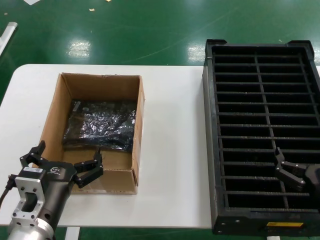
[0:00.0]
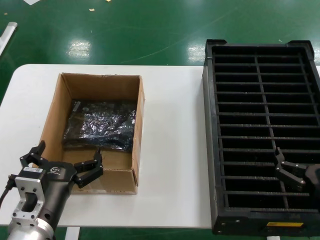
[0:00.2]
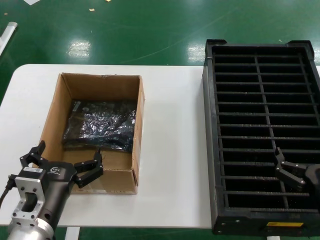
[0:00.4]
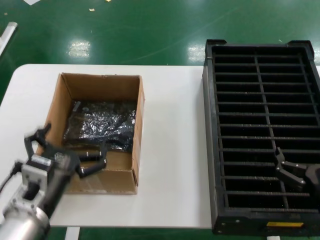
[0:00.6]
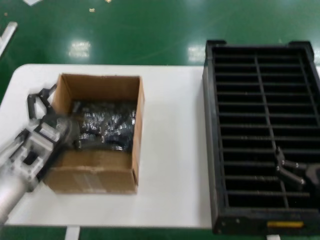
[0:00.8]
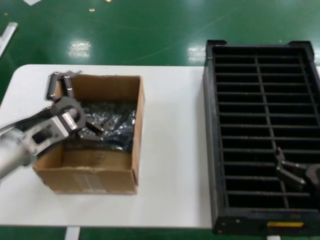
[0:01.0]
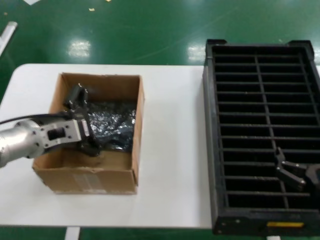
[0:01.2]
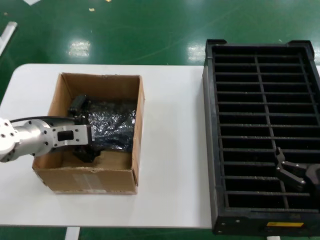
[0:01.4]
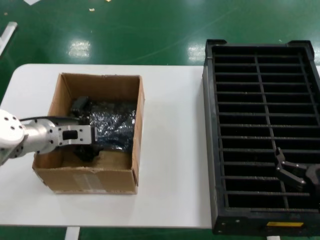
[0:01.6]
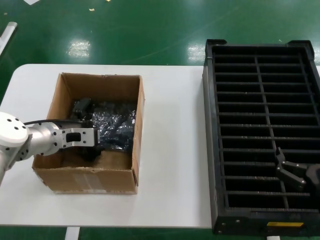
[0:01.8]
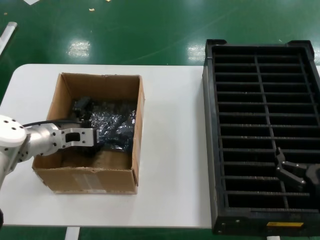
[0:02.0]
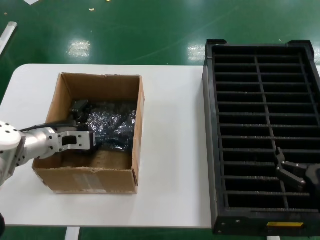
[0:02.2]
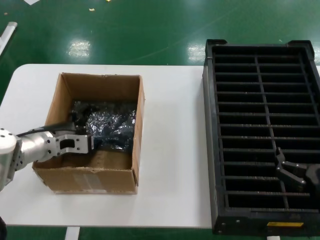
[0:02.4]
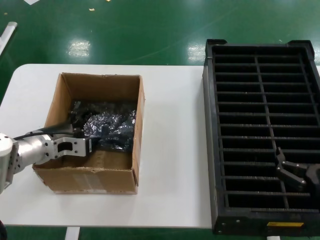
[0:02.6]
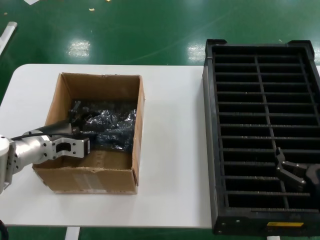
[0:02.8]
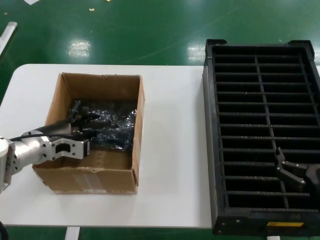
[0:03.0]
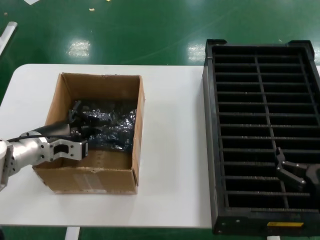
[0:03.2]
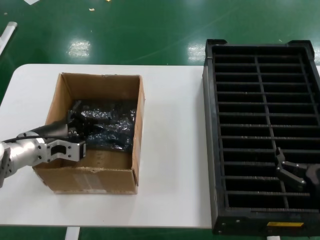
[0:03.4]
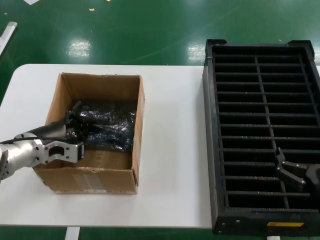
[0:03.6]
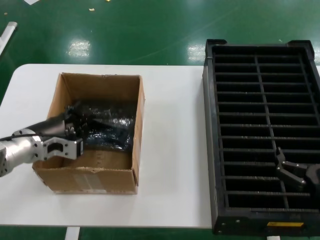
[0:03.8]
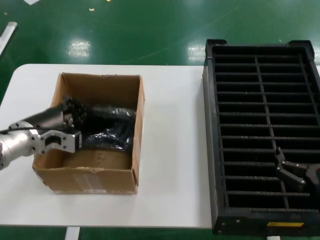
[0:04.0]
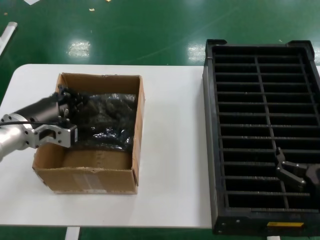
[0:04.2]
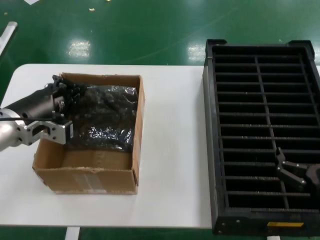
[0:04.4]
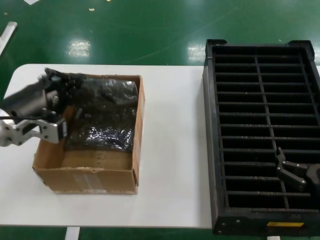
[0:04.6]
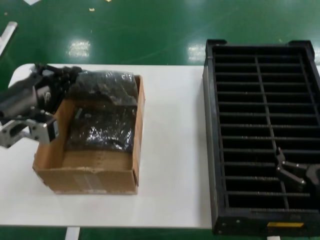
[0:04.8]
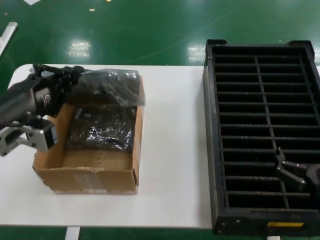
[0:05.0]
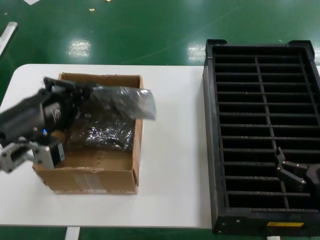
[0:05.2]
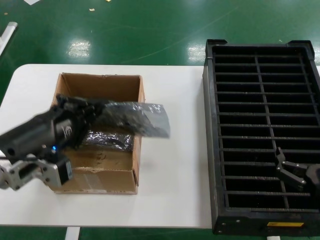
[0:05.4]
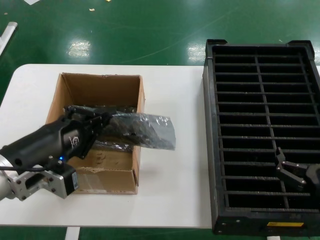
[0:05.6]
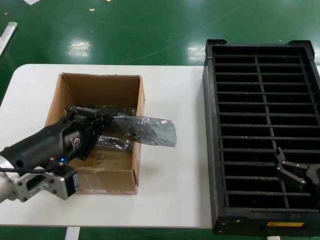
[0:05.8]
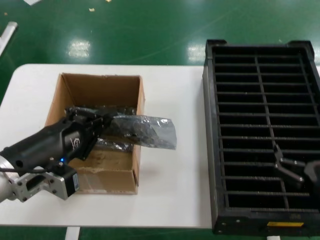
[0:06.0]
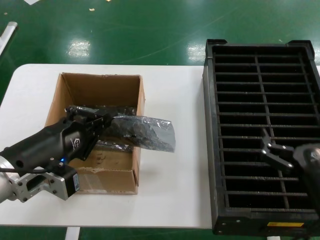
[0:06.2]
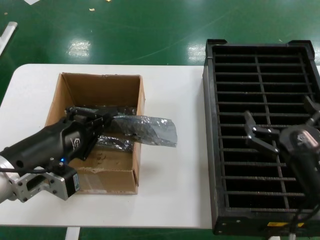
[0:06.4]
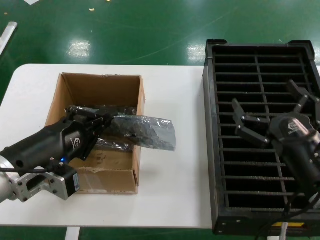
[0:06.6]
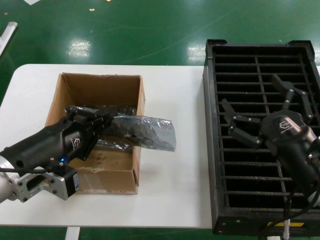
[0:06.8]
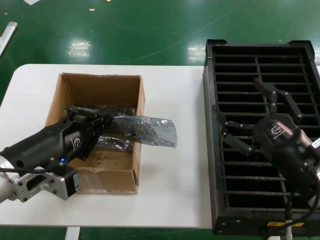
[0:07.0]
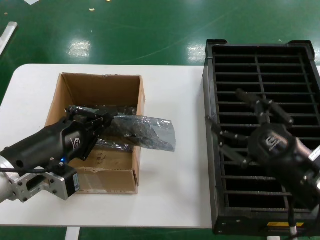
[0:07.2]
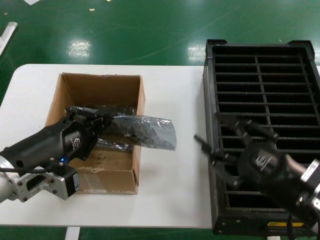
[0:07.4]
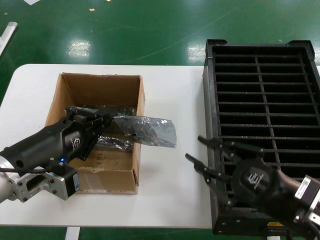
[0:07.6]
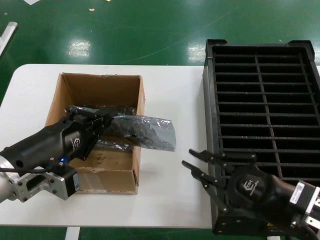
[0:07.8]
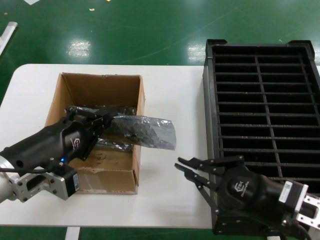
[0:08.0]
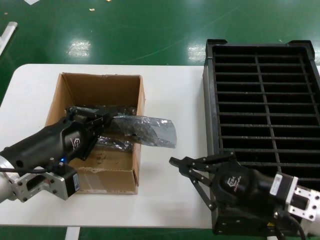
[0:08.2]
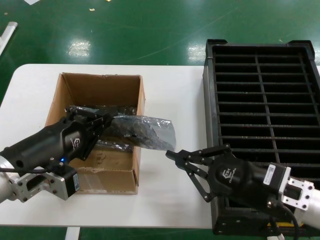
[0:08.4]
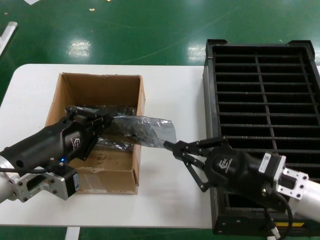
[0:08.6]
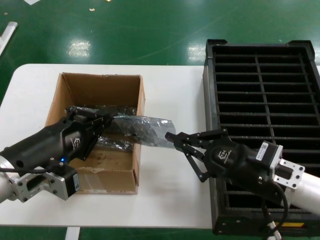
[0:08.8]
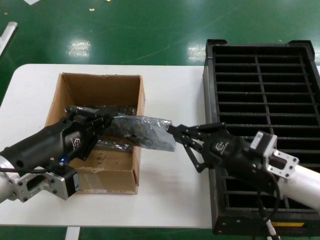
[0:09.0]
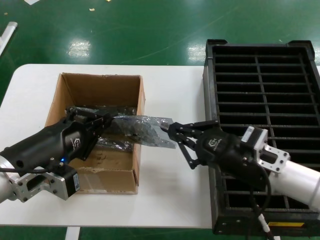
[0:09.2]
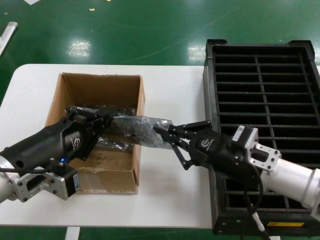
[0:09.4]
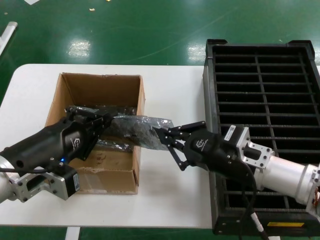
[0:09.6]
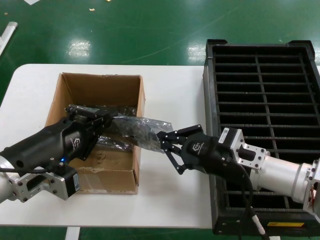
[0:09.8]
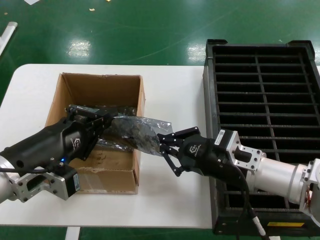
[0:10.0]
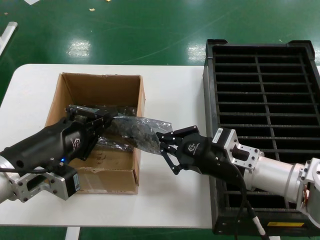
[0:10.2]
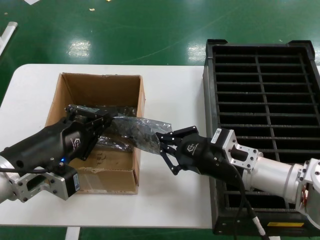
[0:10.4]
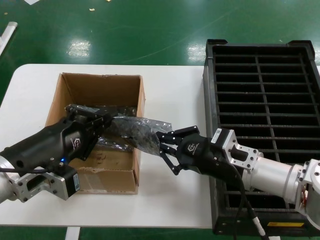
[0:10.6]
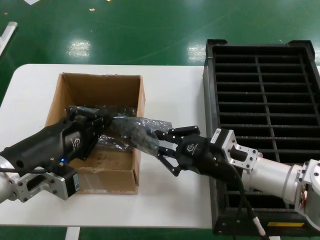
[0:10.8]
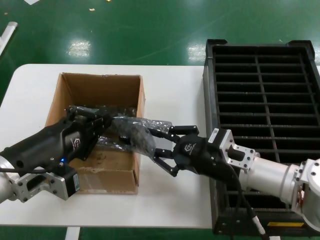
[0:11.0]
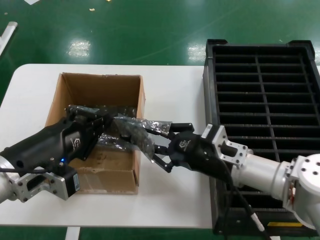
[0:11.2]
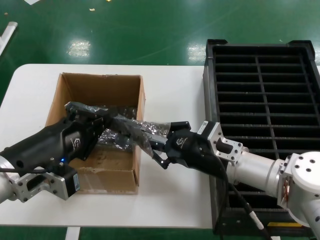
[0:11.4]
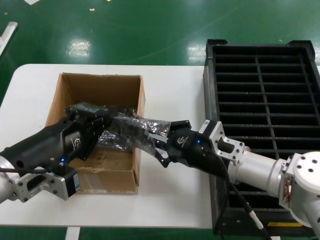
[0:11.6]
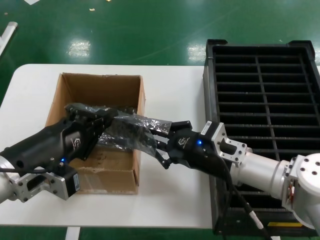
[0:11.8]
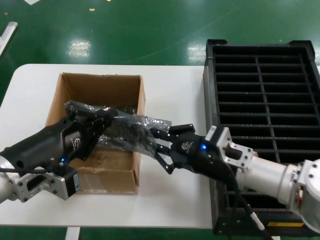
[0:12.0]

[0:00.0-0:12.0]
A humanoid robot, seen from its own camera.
Task of the whole recording: take out graphics card from box remove packaging put into black container.
Step, 0:00.0 to 0:03.2: Grasp the bag.
Step, 0:03.6 to 0:06.0: Lift the bag.
0:00.0 to 0:01.6: The left hand is displaced forward and upward by roughly 20 cm.
0:01.6 to 0:03.0: There are only small adjustments of the hands.
0:03.0 to 0:04.4: The left hand goes some 10 cm upward and backward.
0:04.4 to 0:06.0: The left hand goes approximately 10 cm backward.
0:06.0 to 0:07.6: The right hand changes place by about 5 cm.
0:07.6 to 0:09.0: The right hand shifts roughly 10 cm forward.
0:09.0 to 0:10.4: The right hand shifts by approximately 5 cm.
0:10.4 to 0:12.0: The hands make only small movements.

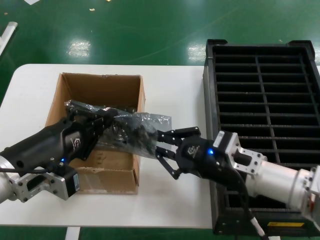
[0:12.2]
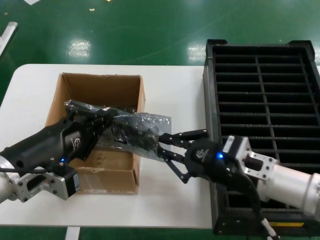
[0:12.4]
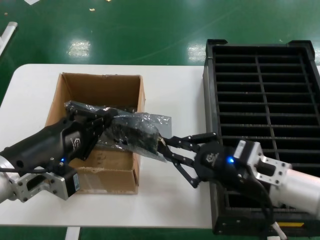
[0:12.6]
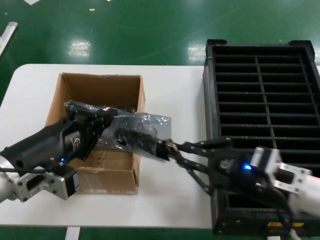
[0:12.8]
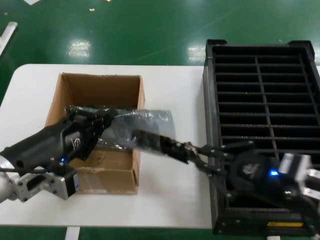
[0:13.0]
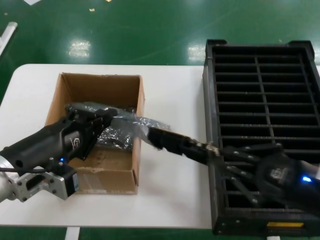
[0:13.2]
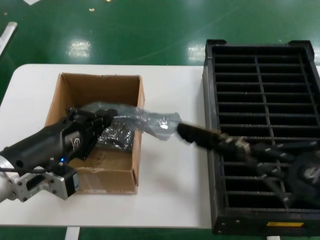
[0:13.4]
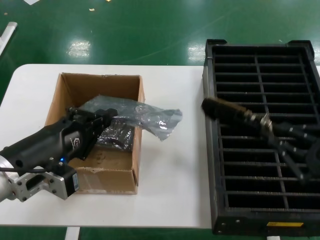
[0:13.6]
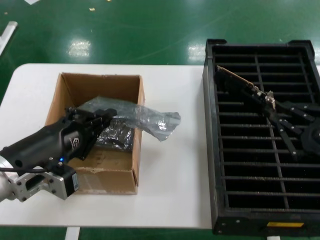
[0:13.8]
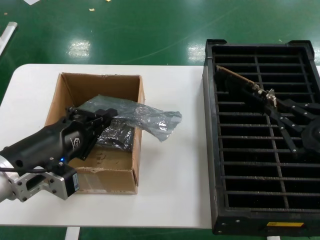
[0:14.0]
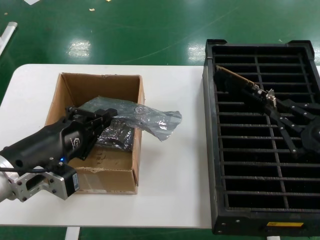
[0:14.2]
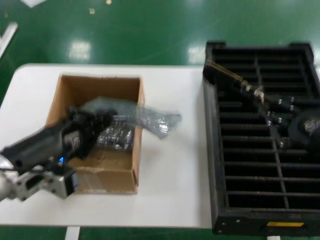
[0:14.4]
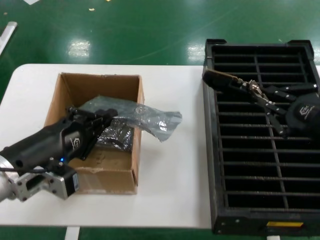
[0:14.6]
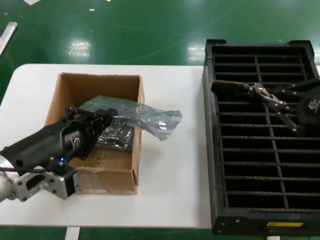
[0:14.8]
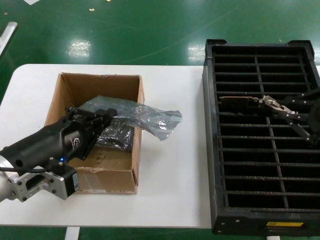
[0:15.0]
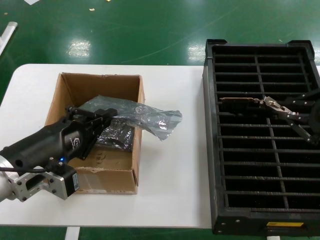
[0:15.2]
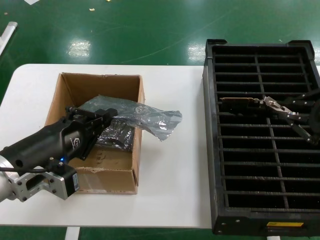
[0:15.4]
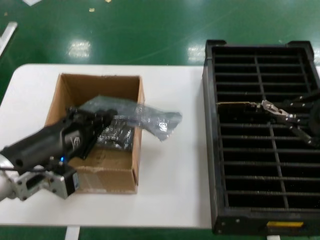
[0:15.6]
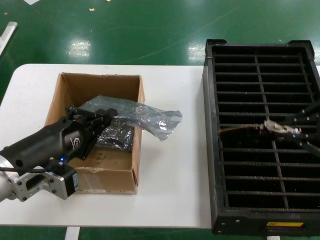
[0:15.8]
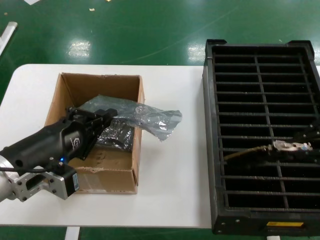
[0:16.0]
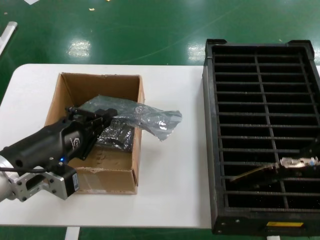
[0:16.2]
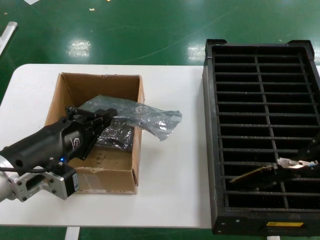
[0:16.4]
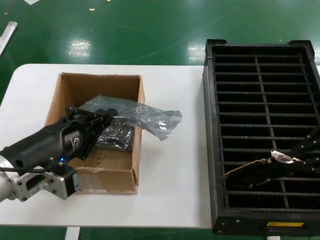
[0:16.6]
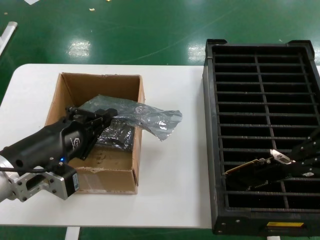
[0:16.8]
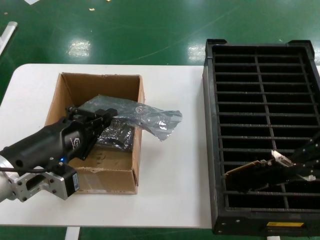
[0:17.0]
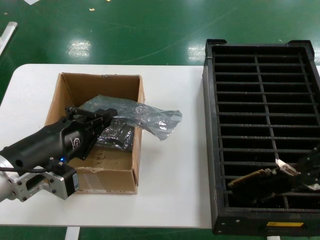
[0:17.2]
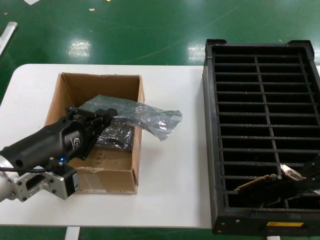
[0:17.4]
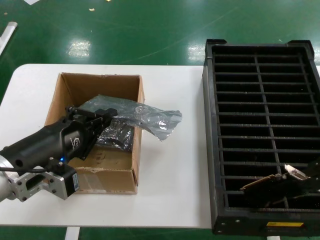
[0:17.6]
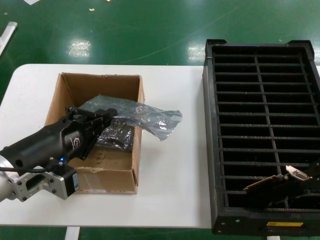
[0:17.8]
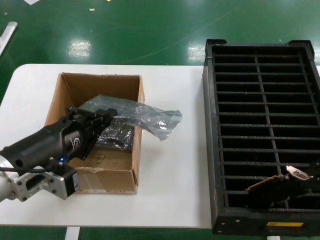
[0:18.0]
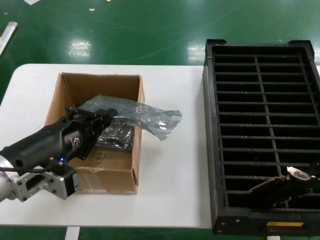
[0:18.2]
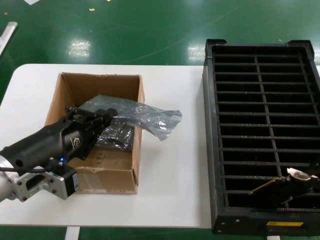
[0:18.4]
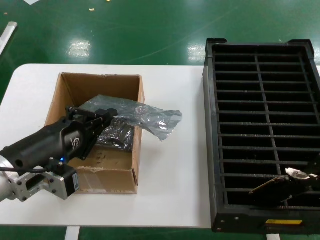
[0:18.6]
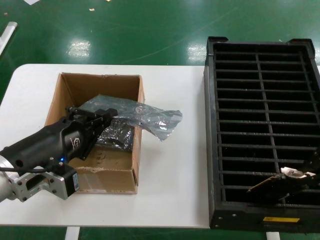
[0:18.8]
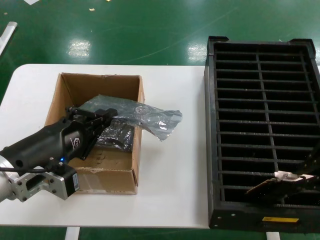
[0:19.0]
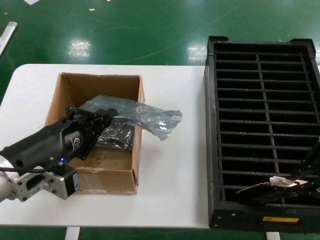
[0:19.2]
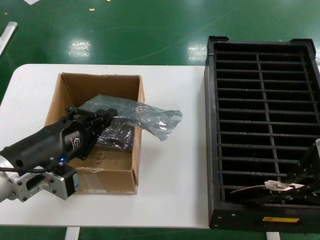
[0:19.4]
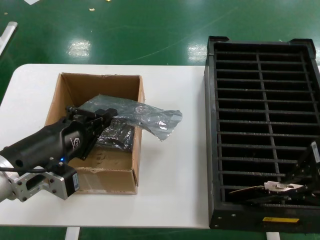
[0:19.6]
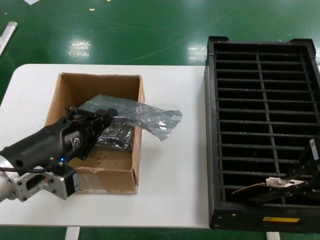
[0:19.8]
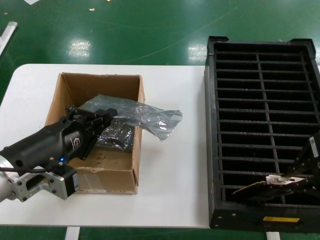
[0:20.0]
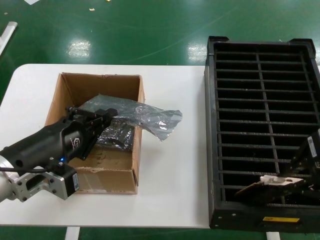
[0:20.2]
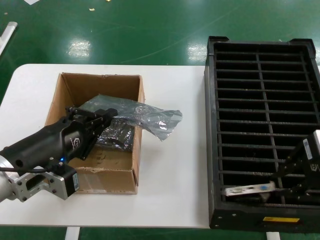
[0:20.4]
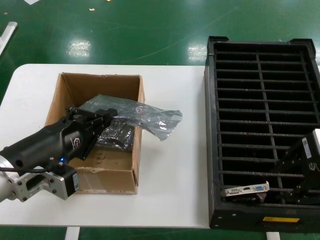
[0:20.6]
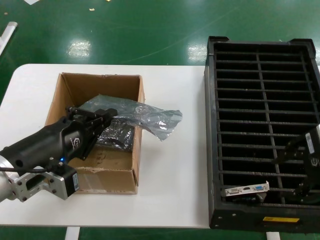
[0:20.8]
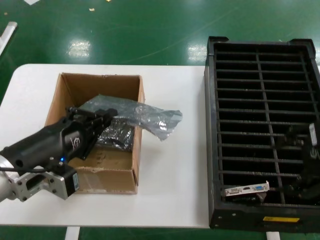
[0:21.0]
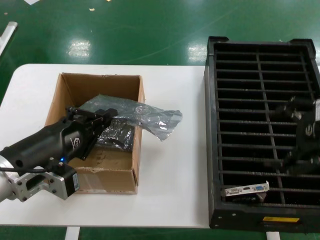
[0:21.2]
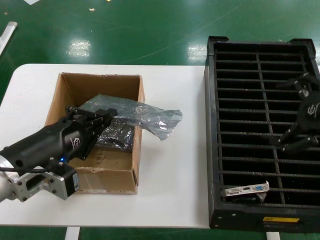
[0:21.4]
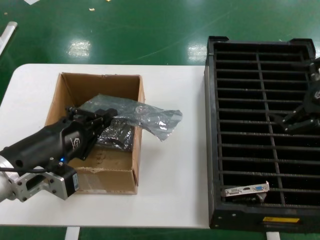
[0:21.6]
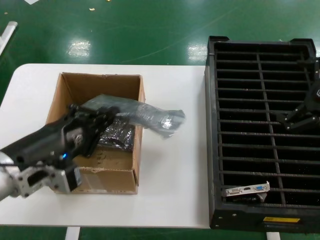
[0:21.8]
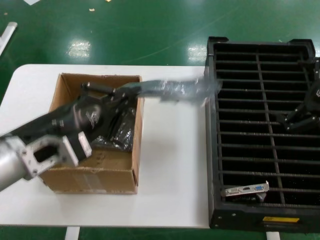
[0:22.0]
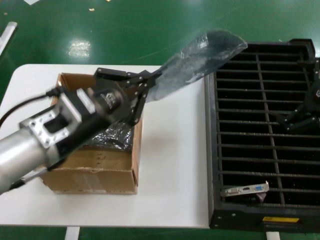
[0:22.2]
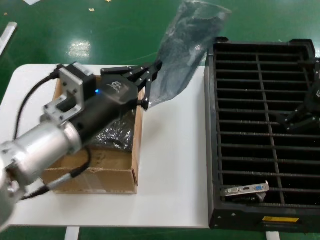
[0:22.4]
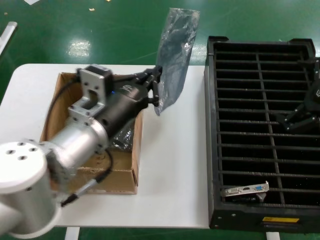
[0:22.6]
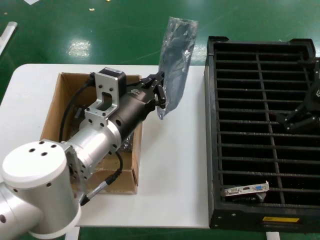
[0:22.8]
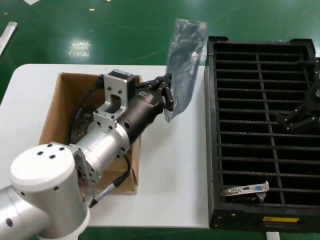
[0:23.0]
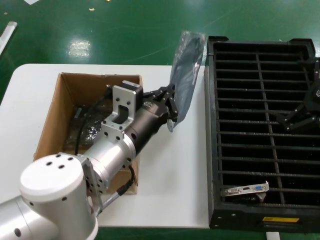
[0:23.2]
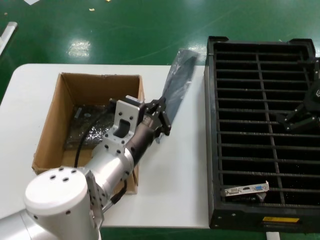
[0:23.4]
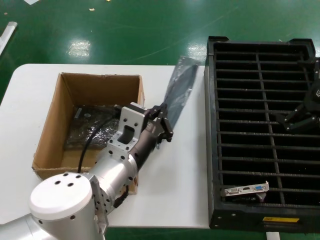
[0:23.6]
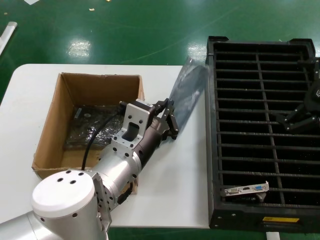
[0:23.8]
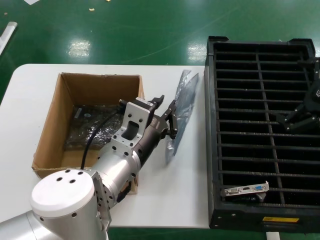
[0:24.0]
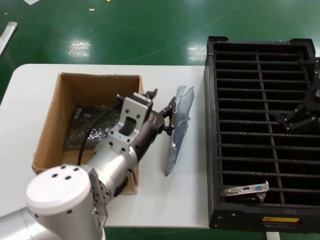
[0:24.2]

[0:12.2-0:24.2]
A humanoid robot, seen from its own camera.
Task of the whole recording: take out graphics card from box remove packaging put into black container.
Step, 0:13.6 to 0:20.8: Place the hard disk in the hard disk enclosure.
0:12.2 to 0:13.8: The right hand travels to the right and backward by about 20 cm.
0:13.8 to 0:15.2: The right hand shifts roughly 10 cm upward and forward.
0:15.2 to 0:16.6: The right hand goes some 5 cm upward.
0:16.6 to 0:18.2: The hands make only small movements.
0:18.2 to 0:19.8: The right hand moves to the left, roughly 5 cm.
0:19.8 to 0:21.2: The hands move only a little.
0:21.2 to 0:22.6: The right hand ends up approximately 5 cm from where it was, while the left hand is displaced to the right and forward by some 10 cm.
0:22.6 to 0:24.2: The left hand heads to the right, covering roughly 5 cm.
